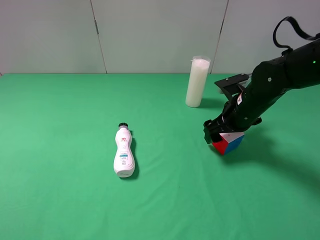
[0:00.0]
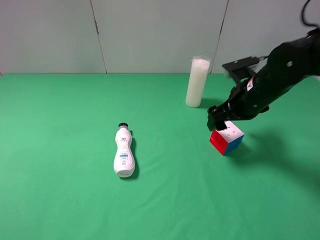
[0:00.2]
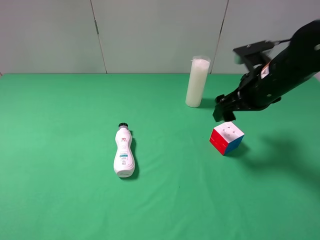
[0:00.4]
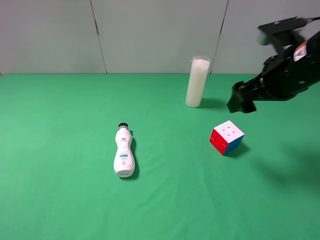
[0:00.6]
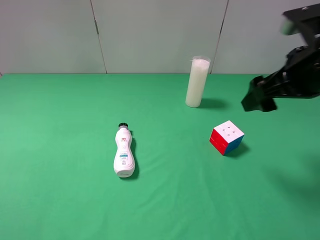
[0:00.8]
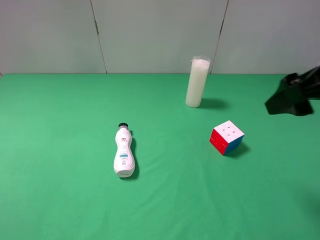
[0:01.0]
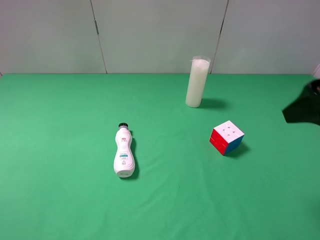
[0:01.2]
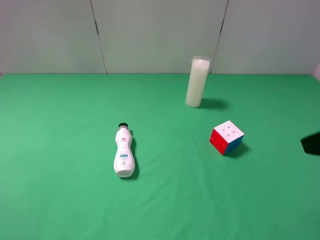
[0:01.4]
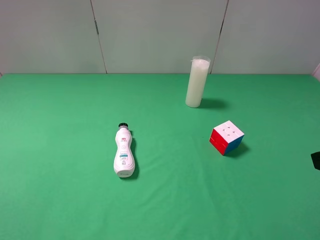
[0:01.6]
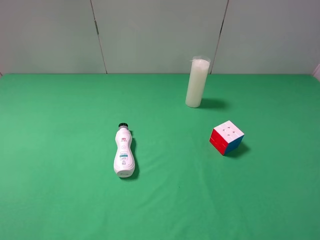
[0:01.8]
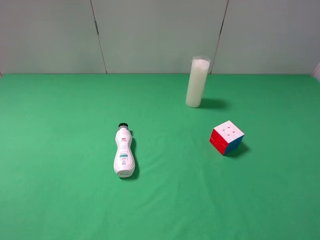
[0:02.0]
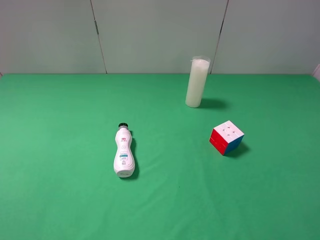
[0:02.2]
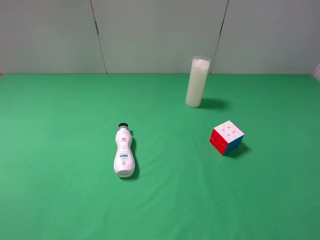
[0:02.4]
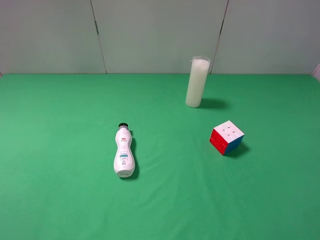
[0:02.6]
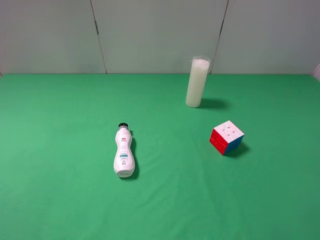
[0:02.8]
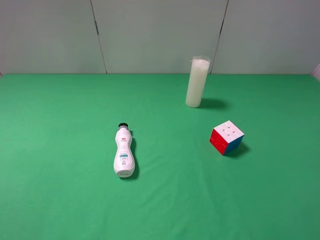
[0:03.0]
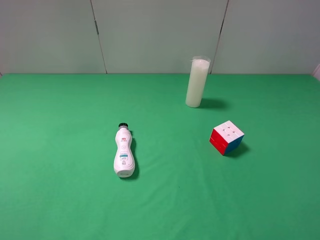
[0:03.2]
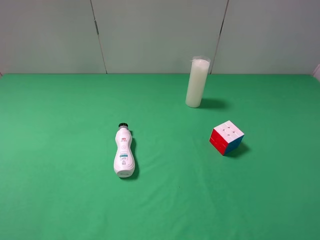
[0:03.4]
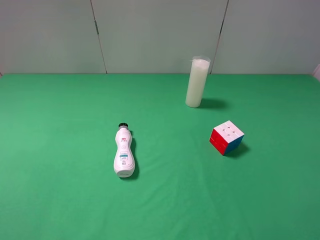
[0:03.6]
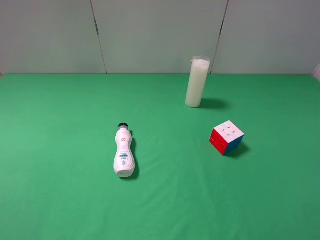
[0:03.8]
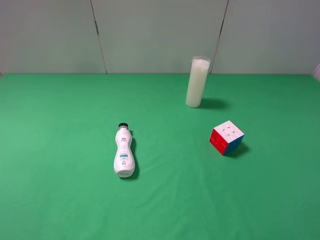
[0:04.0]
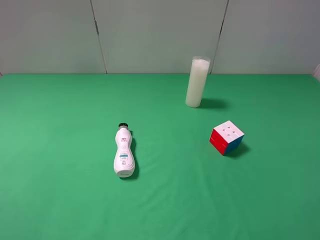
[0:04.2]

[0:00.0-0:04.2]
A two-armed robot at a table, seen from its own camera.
Task of the whole recording: use the left gripper to pick up the item and transfer it from the left gripper to the right gripper.
0:00.0 to 0:01.4: The right gripper goes approximately 25 cm backward, upward and to the right.
